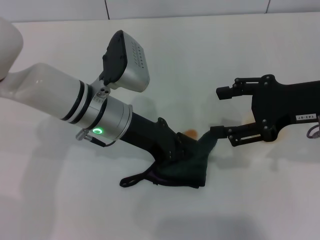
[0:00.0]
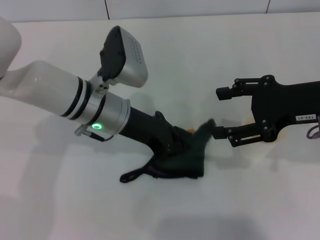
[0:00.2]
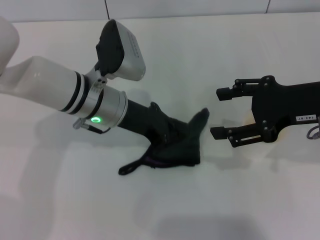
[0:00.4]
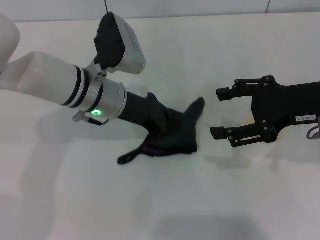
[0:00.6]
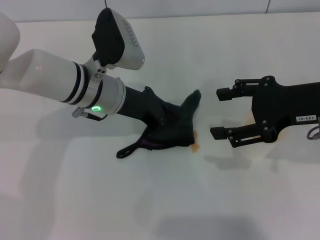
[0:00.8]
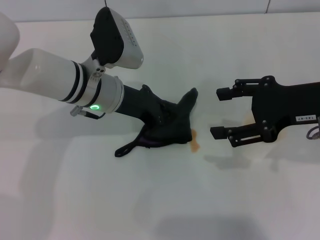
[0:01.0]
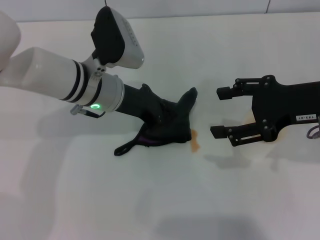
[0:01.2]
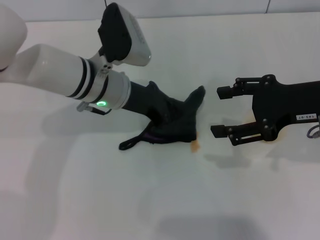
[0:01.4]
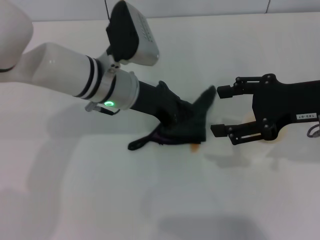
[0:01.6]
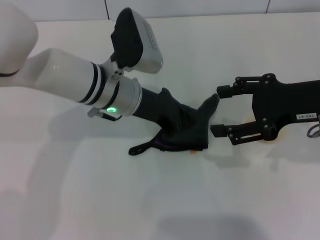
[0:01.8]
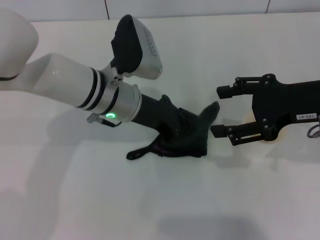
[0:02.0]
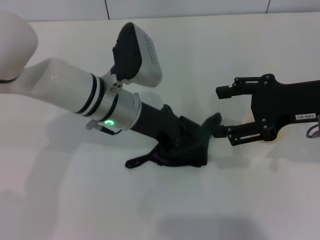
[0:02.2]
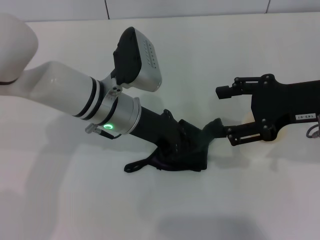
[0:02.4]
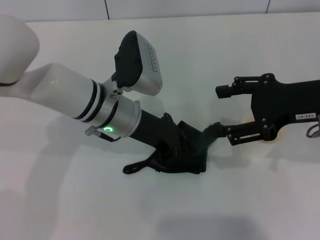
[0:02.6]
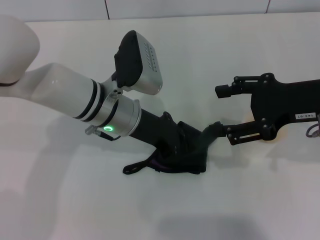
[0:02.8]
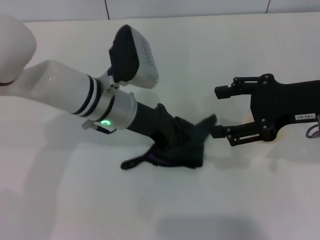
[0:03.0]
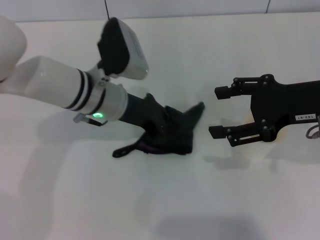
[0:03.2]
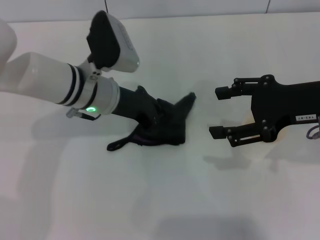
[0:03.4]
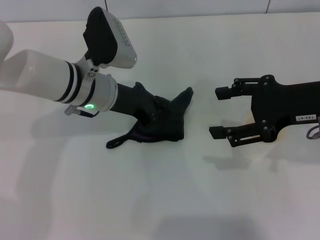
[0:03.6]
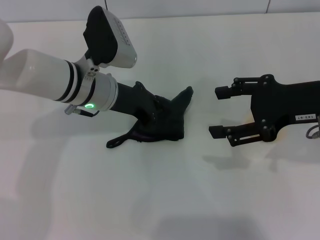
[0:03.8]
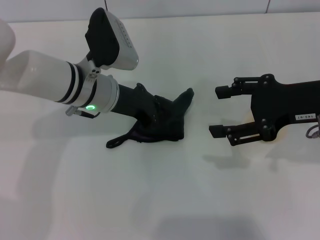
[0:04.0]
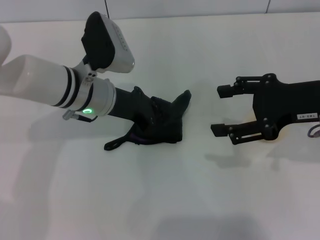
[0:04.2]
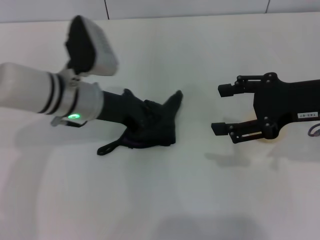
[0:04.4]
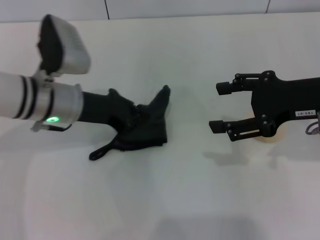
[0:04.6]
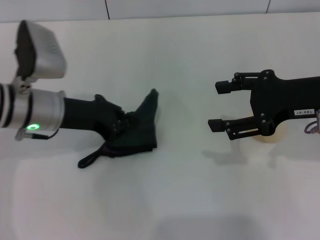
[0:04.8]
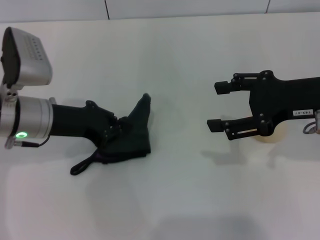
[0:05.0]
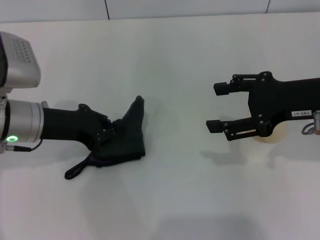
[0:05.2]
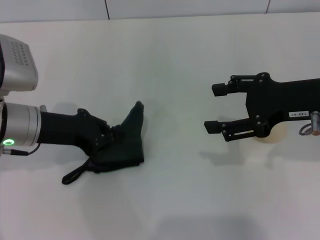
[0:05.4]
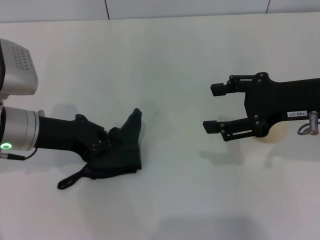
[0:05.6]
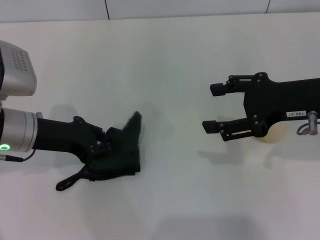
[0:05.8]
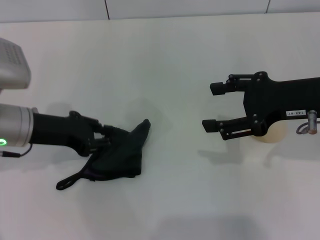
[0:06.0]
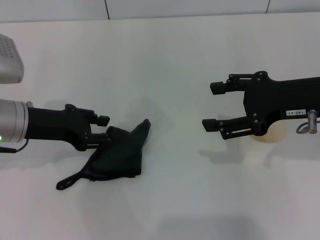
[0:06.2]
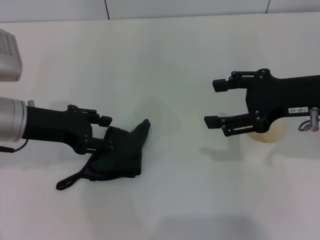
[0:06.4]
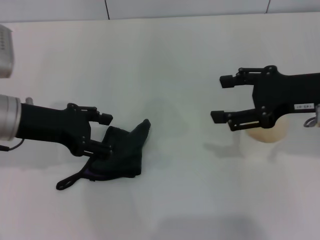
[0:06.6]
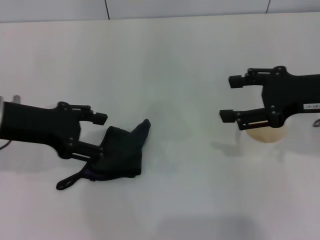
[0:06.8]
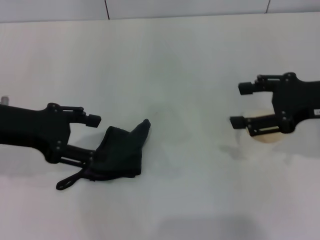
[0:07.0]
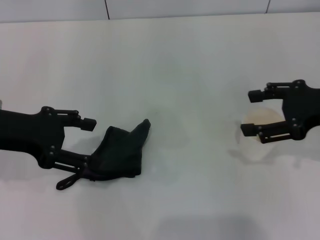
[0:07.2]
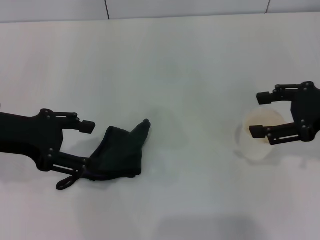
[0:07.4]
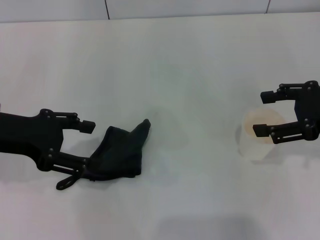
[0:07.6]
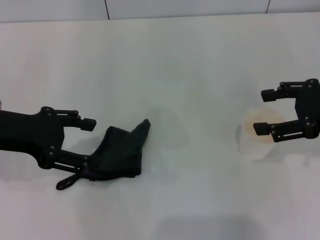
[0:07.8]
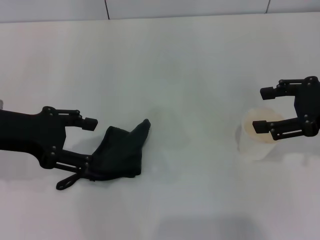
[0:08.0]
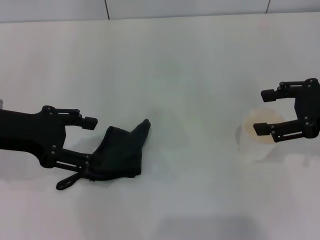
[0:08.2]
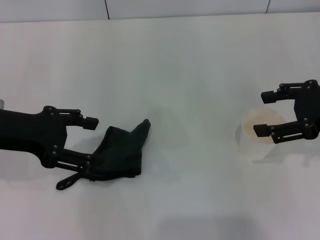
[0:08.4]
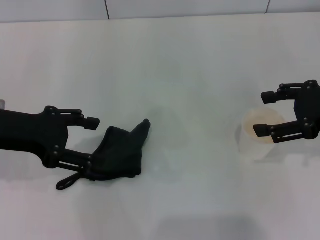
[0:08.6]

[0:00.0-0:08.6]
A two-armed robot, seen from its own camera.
Step, 0:00.0 to 0:05.0: Wipe the stains off the table with the left gripper.
Step, 0:05.2 to 0:07.0: Place the rag on the table with the left gripper.
0:00.0 to 0:02.8: The grippers move only a little.
0:02.8 to 0:04.4: The left gripper travels to the left by about 5 cm.
0:04.4 to 0:05.8: The left gripper goes some 10 cm to the left.
0:05.8 to 0:07.2: The left gripper is displaced upward by about 5 cm, and opens its fingers.
0:07.2 to 0:08.6: Both grippers stay about where they are.

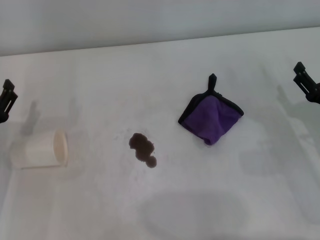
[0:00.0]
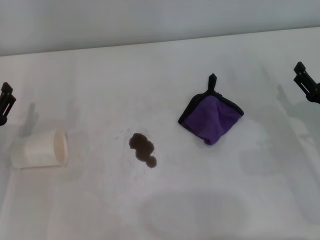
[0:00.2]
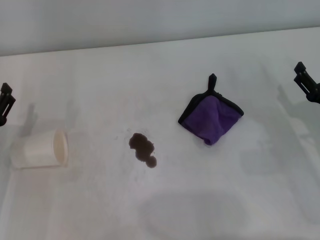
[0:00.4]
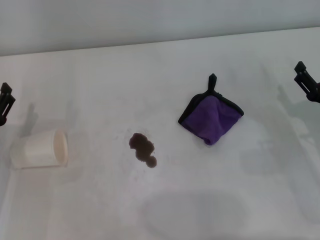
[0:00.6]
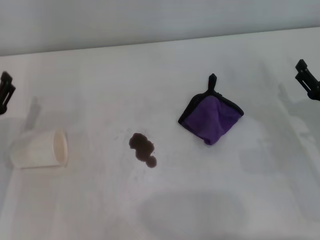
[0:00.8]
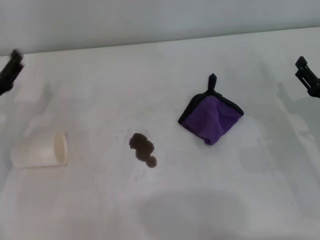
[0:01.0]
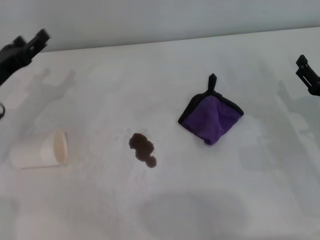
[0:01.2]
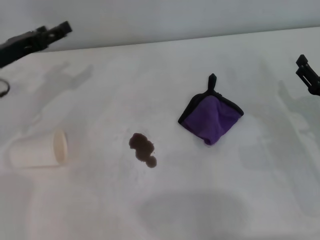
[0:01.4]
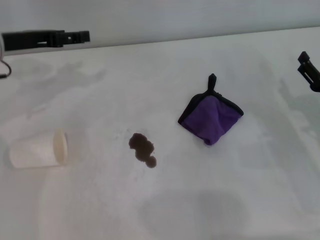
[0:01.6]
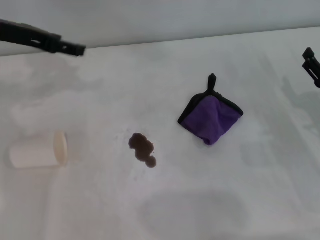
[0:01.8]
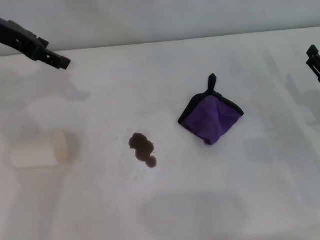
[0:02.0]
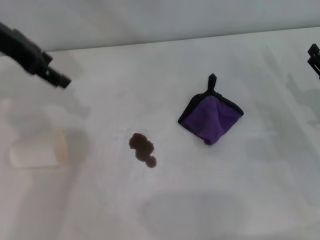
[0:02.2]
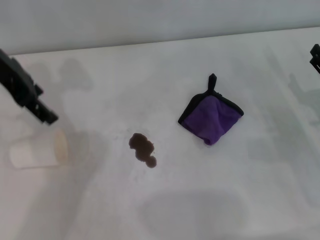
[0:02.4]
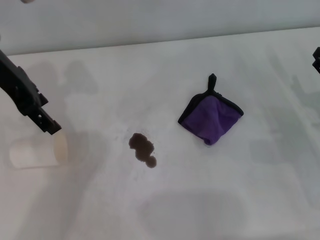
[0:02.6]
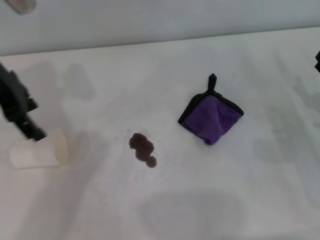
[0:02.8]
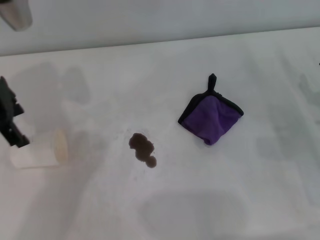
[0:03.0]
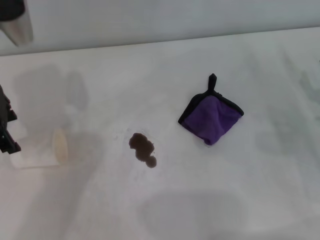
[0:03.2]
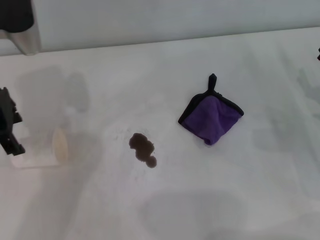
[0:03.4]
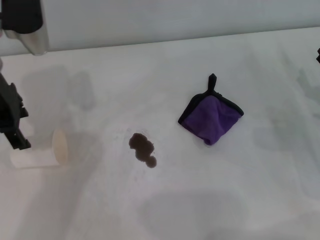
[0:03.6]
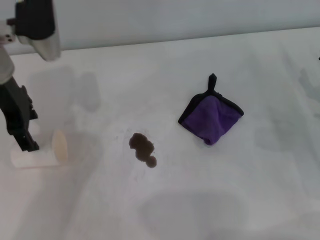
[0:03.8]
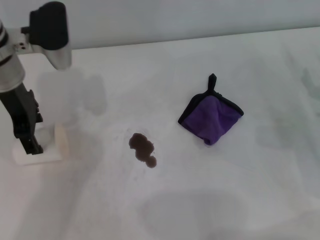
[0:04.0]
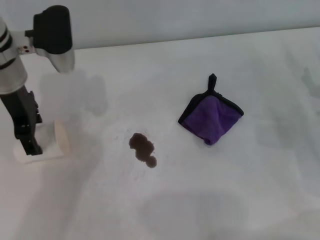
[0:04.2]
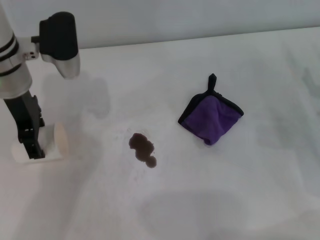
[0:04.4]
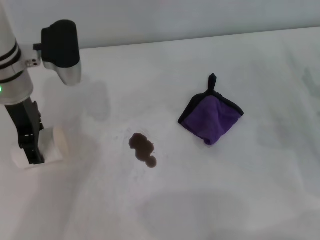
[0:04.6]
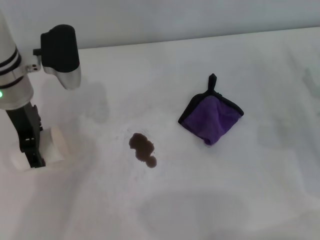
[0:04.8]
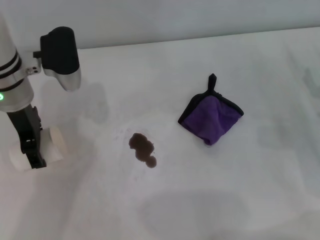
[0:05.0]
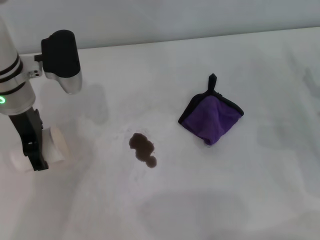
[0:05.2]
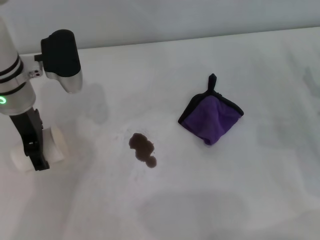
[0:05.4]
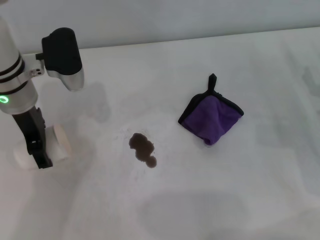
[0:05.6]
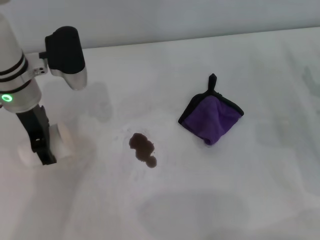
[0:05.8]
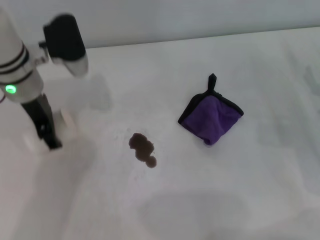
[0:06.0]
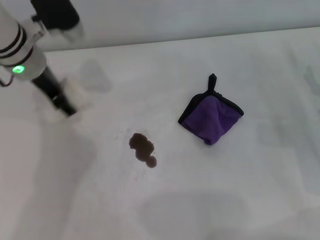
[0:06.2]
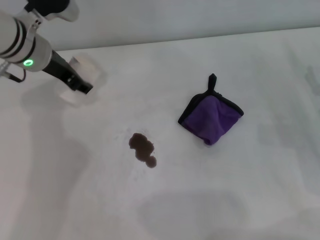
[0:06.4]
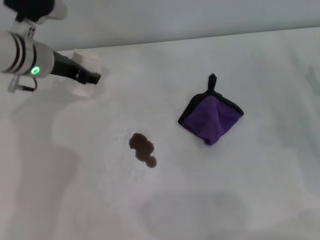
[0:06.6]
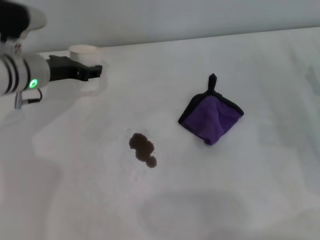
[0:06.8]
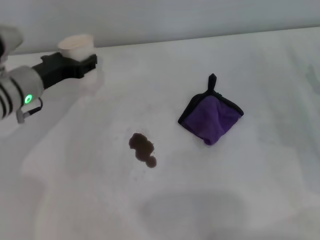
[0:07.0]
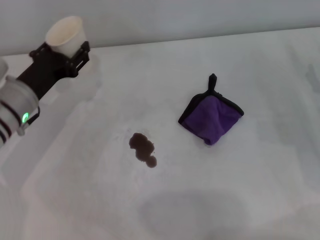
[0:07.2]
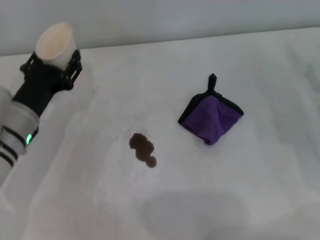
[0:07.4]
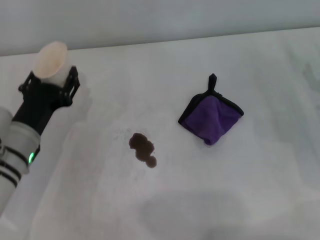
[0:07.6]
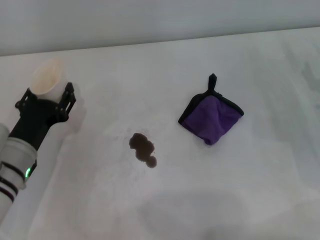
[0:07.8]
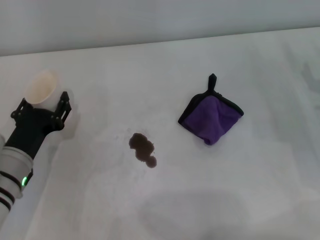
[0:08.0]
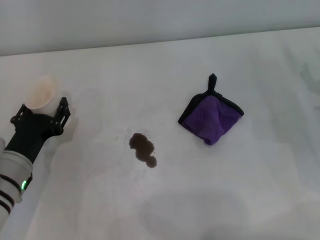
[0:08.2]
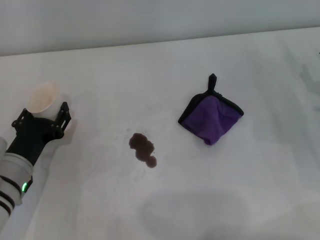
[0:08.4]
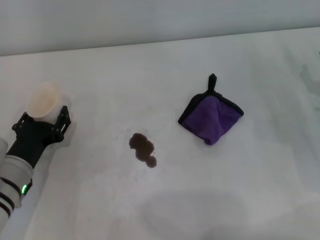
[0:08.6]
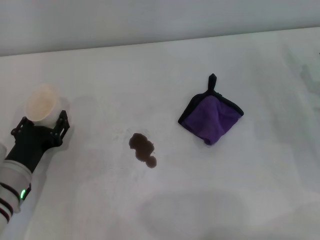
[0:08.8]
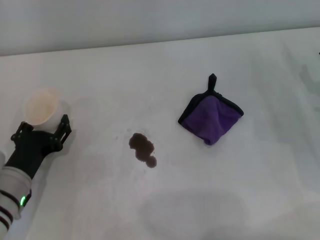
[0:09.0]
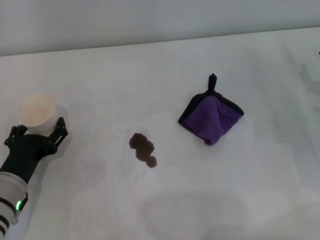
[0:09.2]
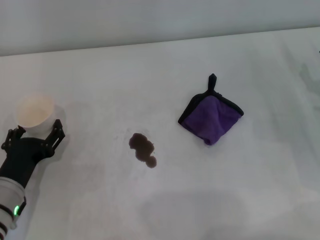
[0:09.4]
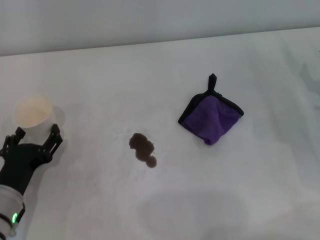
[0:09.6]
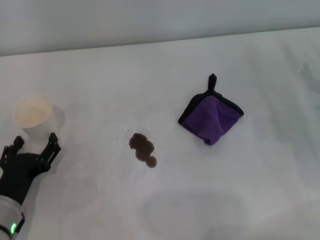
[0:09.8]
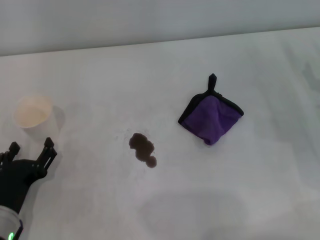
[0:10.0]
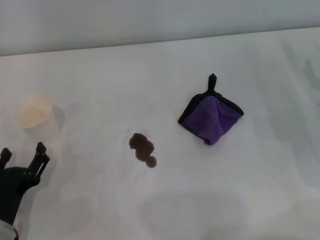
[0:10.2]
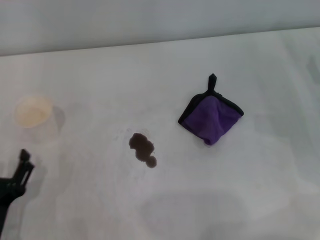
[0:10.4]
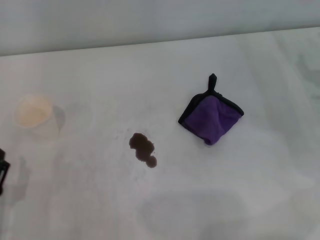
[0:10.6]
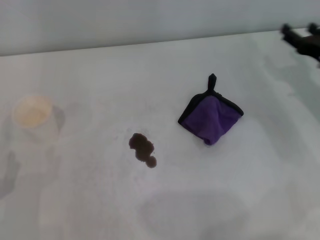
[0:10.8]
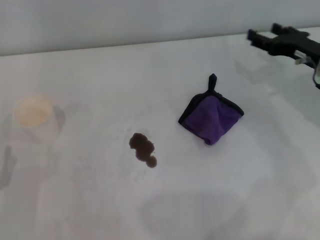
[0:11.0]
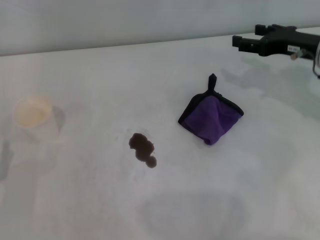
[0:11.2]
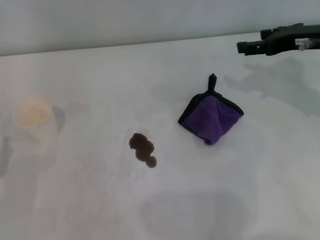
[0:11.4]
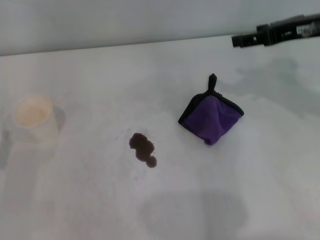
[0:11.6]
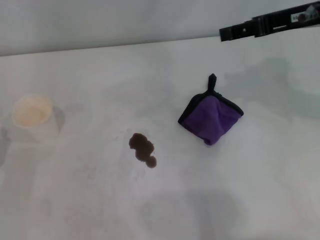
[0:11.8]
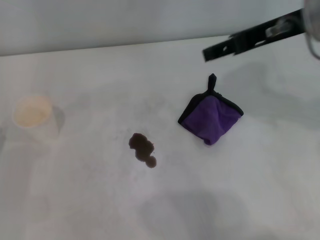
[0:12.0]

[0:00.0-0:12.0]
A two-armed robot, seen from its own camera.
Step, 0:00.0 to 0:05.6: Grasp the paper cup with the left gripper.
Step, 0:05.8 to 0:09.2: Stand the paper cup upright with the left gripper.
0:00.0 to 0:01.6: The left gripper moves forward and upward, some 20 cm.
0:01.6 to 0:03.0: The left gripper is displaced upward by roughly 5 cm.
0:03.0 to 0:04.4: The left gripper travels downward by approximately 5 cm.
0:04.4 to 0:06.0: The left gripper closes.
0:06.0 to 0:07.6: The left gripper goes about 15 cm downward and backward, and closes.
0:07.6 to 0:09.0: The left gripper changes place by approximately 5 cm.
0:09.0 to 0:10.4: The left gripper travels backward by roughly 10 cm, and opens up.
0:10.4 to 0:12.0: The left gripper is displaced to the left and forward by some 10 cm; the right gripper goes roughly 25 cm upward and to the left.

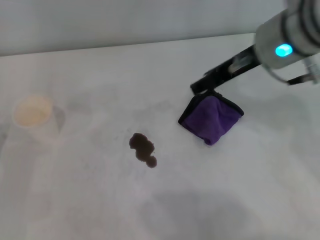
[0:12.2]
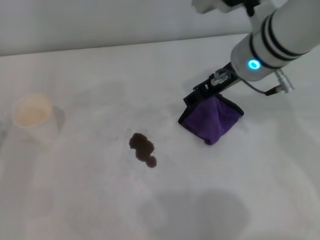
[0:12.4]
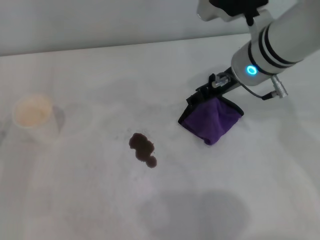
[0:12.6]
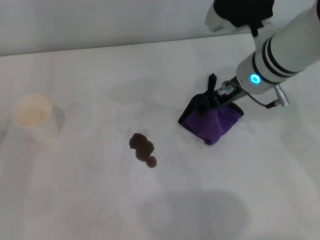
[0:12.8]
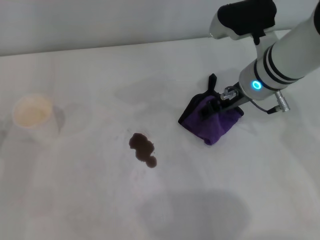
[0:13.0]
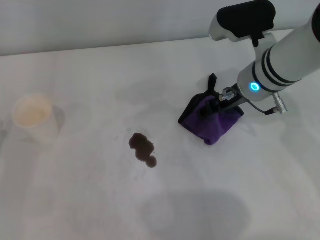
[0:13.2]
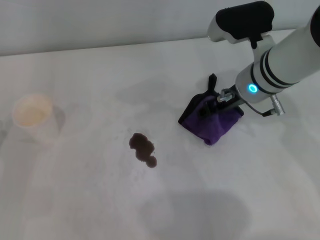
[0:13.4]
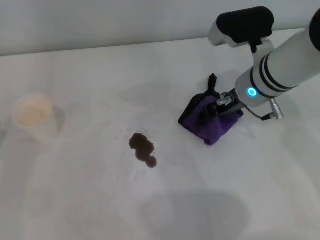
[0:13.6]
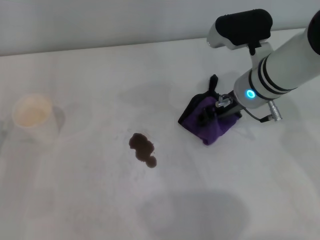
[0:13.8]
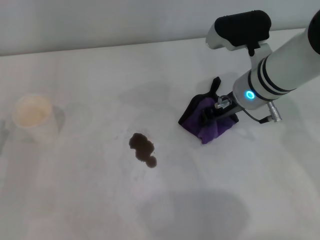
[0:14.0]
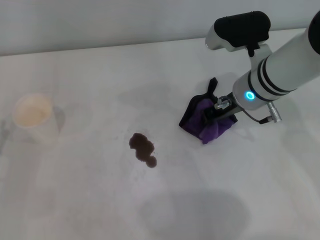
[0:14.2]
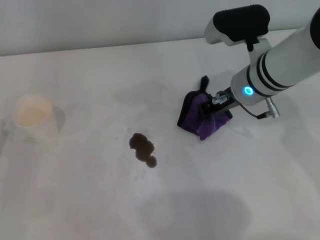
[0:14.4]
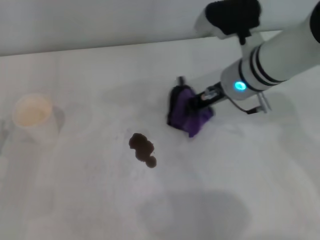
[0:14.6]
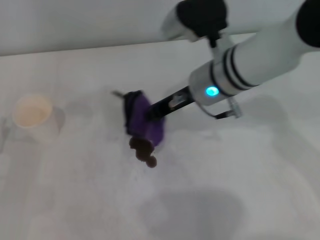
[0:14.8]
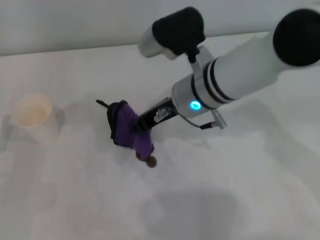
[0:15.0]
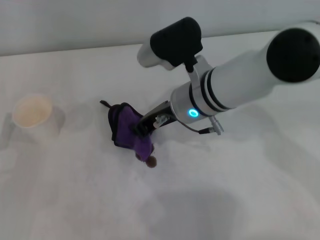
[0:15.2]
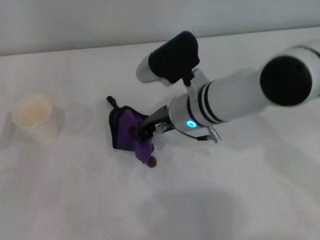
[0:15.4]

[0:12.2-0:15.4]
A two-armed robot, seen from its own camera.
Step, 0:12.2 to 0:14.2: Grasp the rag with the right gripper.
0:12.2 to 0:13.8: The right gripper moves downward, some 10 cm.
0:13.8 to 0:15.4: The right gripper heads to the left, covering some 10 cm, and closes.
